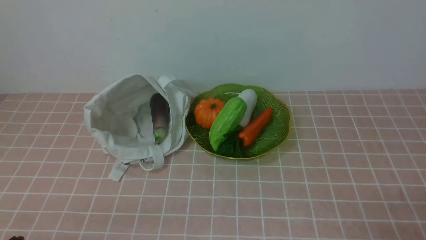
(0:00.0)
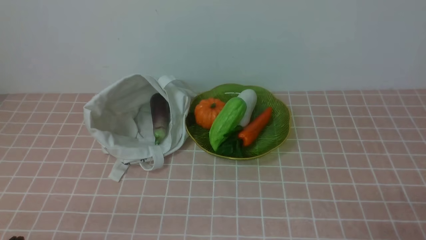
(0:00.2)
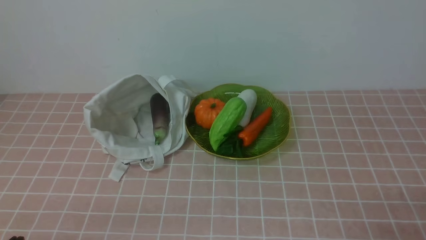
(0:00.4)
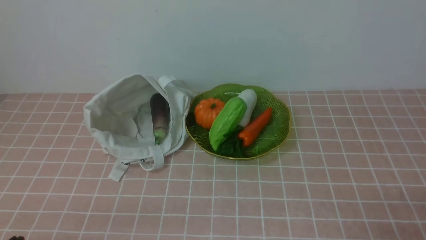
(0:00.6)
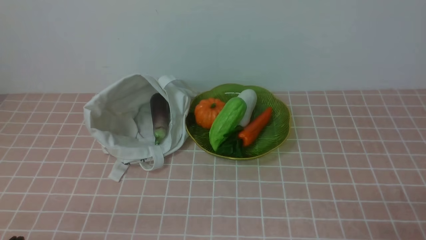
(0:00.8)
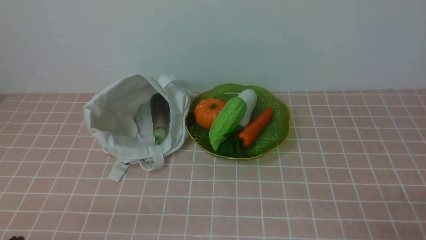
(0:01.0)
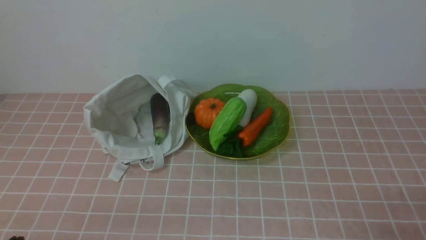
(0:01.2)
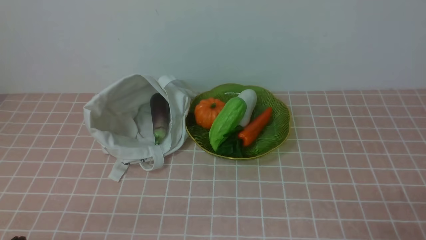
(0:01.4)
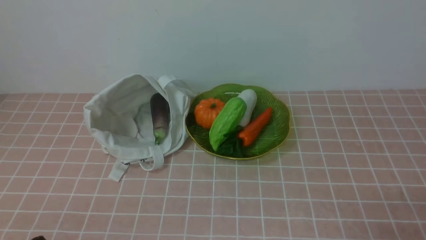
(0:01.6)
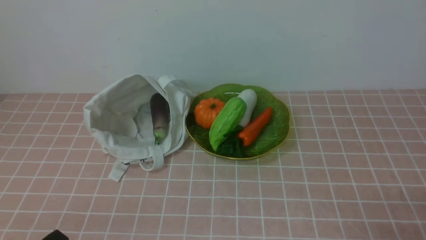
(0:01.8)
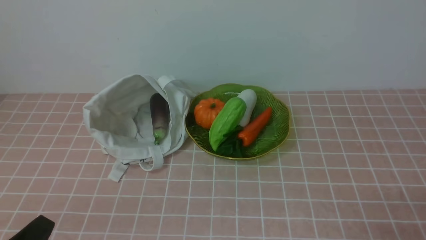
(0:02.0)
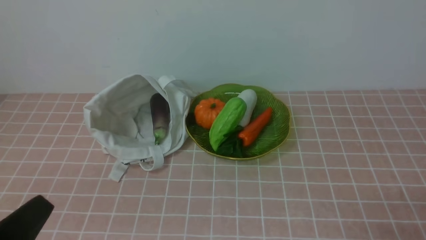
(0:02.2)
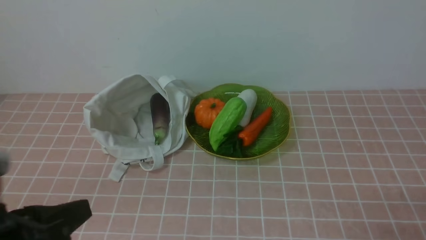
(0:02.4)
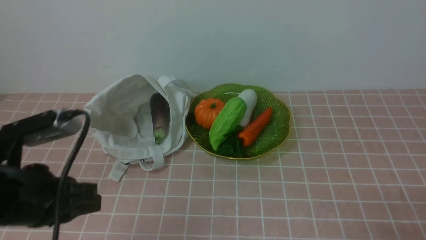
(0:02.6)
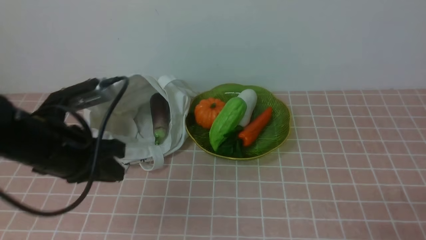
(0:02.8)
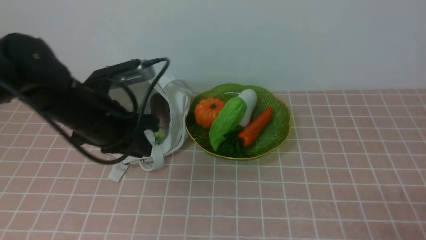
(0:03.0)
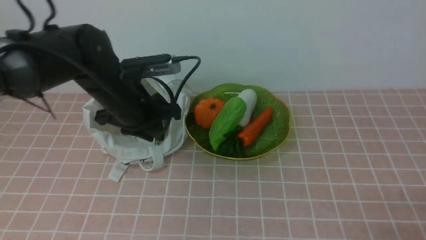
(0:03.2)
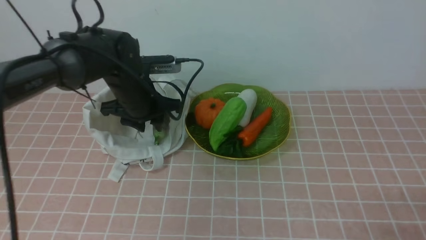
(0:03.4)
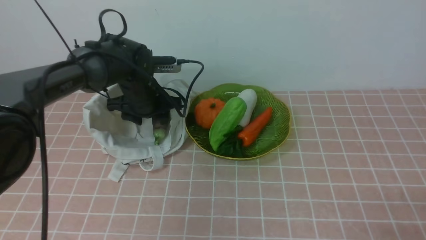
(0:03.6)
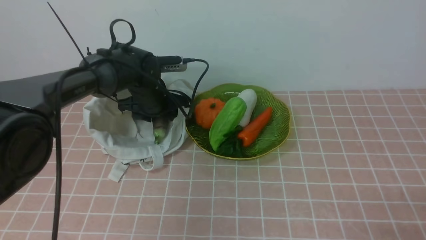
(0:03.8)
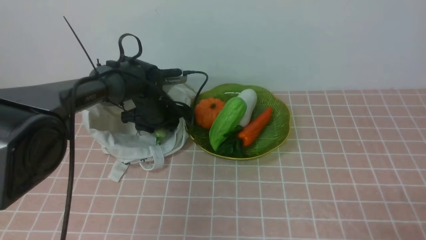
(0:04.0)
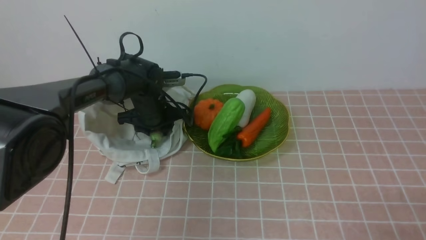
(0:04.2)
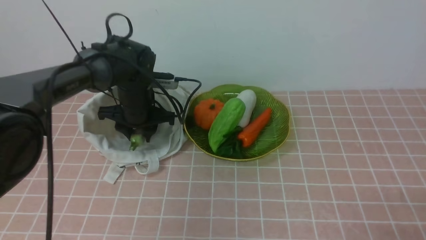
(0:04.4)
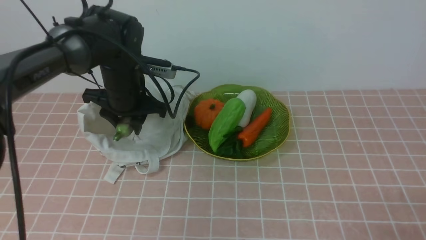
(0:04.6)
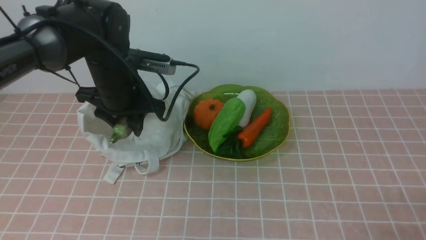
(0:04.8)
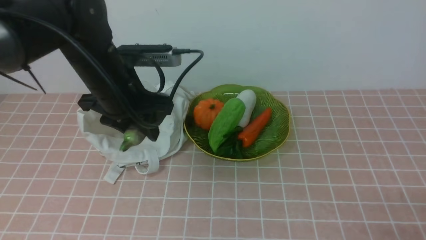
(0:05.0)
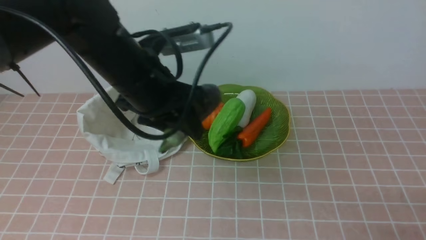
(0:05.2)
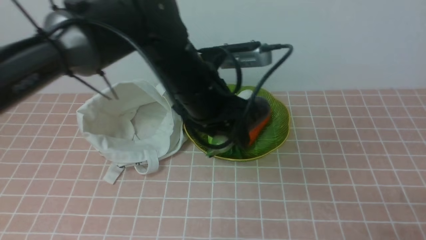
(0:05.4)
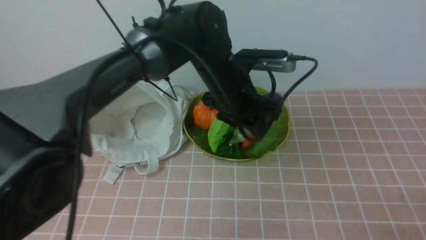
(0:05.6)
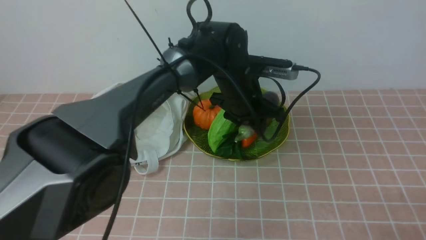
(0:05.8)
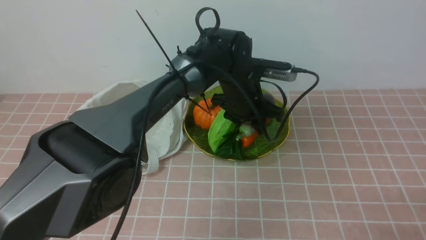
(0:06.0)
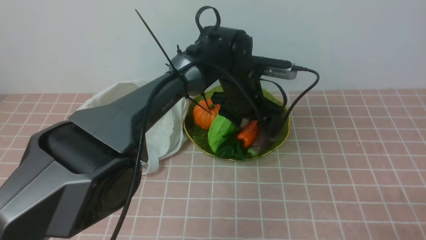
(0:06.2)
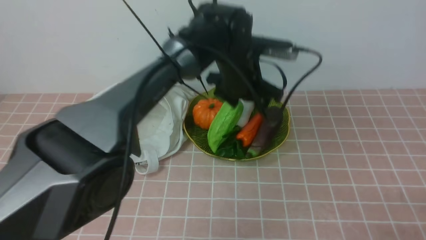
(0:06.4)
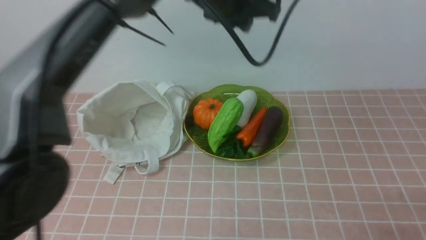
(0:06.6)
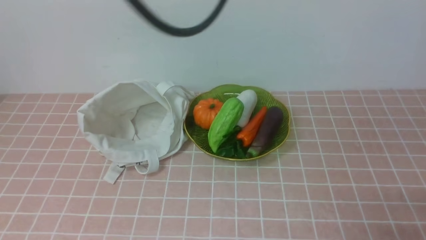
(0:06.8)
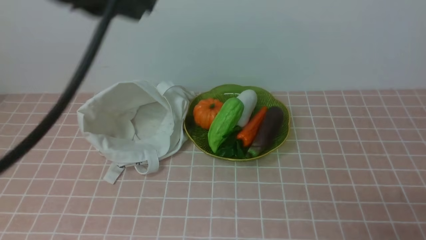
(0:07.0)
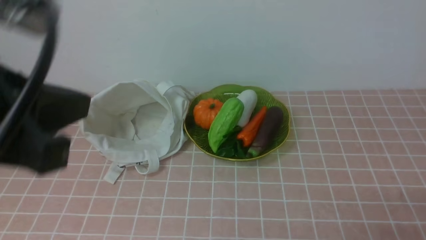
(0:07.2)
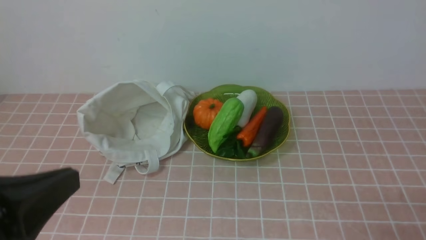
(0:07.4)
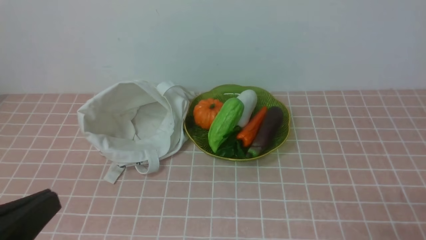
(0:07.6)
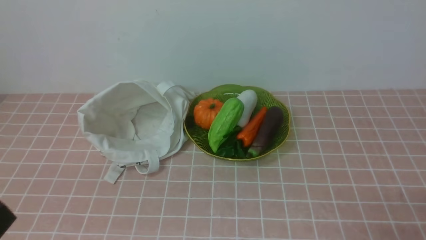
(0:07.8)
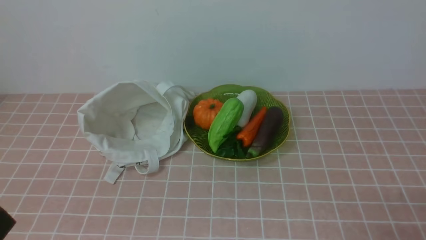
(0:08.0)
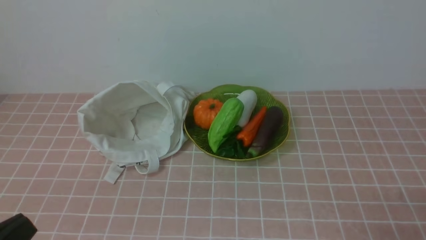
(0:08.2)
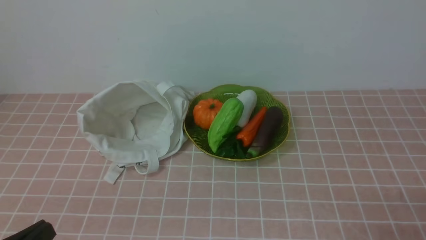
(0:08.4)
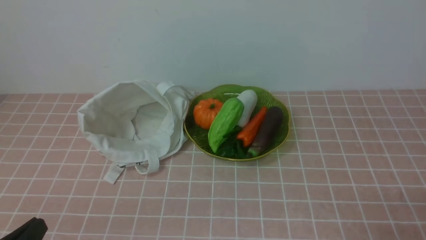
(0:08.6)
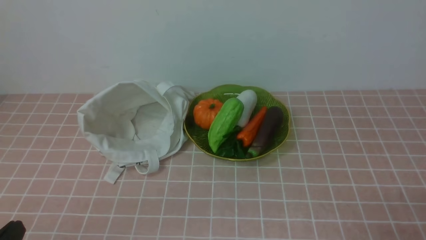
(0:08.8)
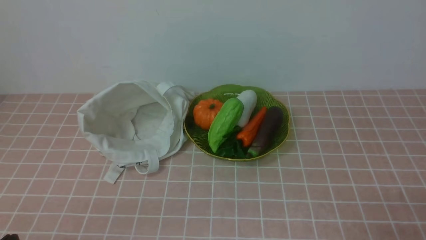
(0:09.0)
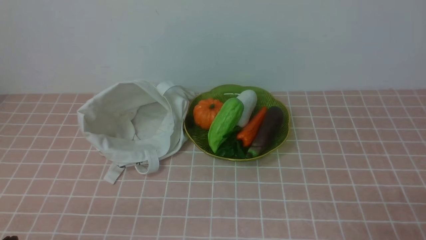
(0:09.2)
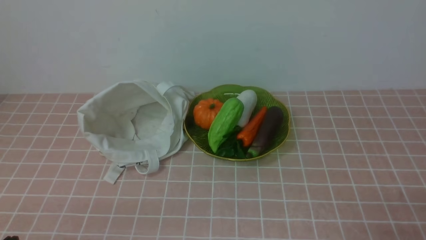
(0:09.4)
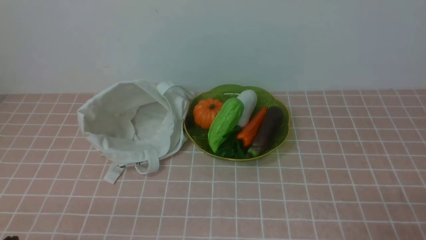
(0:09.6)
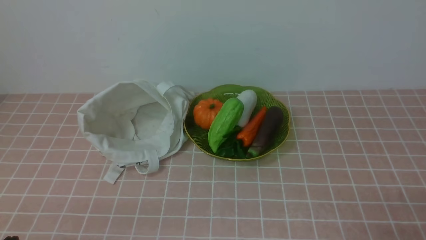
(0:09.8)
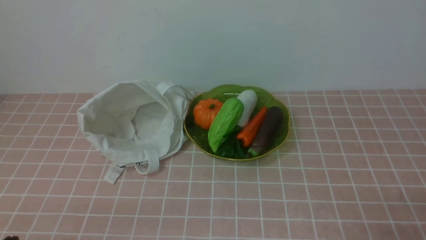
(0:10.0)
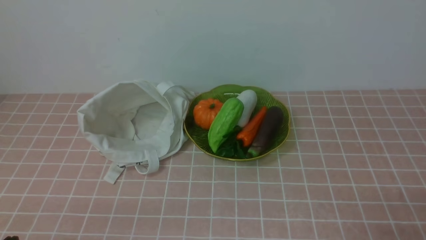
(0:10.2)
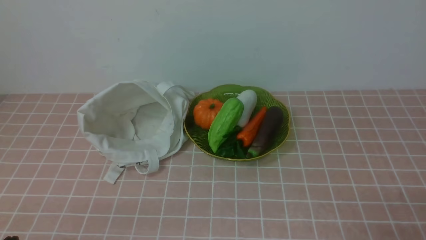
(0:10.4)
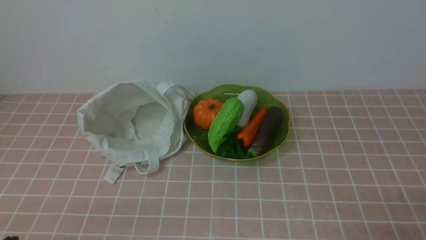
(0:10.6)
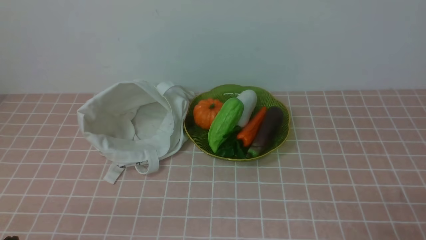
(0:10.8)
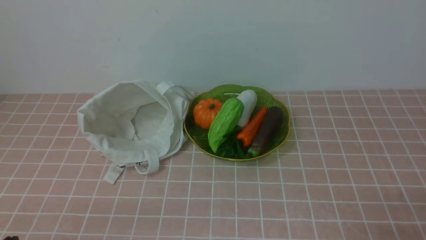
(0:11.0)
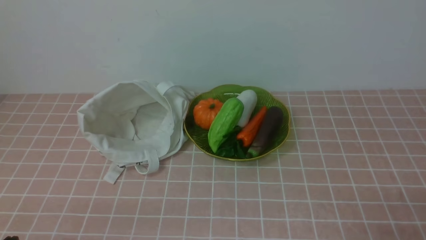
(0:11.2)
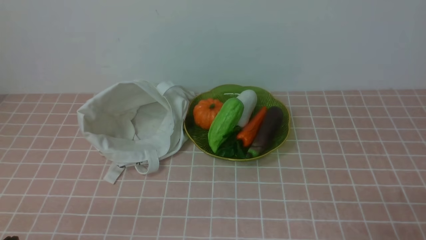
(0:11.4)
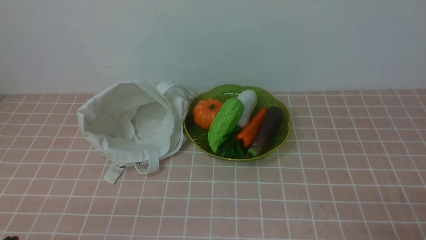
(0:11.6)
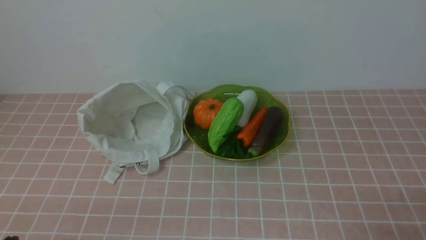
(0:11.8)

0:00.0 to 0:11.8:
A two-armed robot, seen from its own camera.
Task of the whole recording: take vegetables from bag on pink coffee tablecloth place on plate.
Step, 0:00.0 to 0:04.0: Grasp the eggplant with left gripper.
Step, 0:04.2 to 0:06.4: Place the eggplant on the plate with left gripper.
0:01.4 to 0:03.0: The left gripper is displaced forward and upward by some 25 cm.
0:03.0 to 0:04.4: The left gripper moves forward and downward, some 20 cm, and opens up.
0:04.4 to 0:06.0: The left gripper heads to the right, covering roughly 20 cm.
0:06.0 to 0:07.4: The left gripper is displaced backward, to the left and upward by some 40 cm, and closes up.
0:07.4 to 0:08.8: The left gripper goes some 15 cm downward.
0:10.4 to 0:11.8: The two grippers keep their place.
